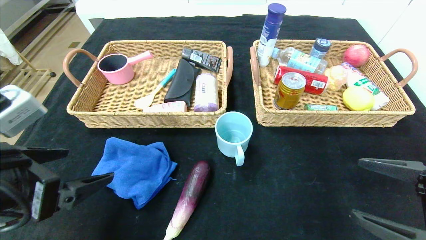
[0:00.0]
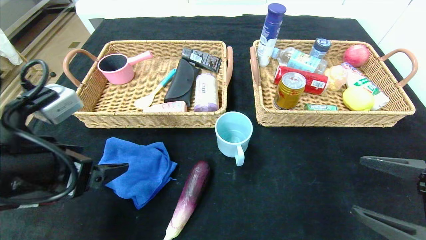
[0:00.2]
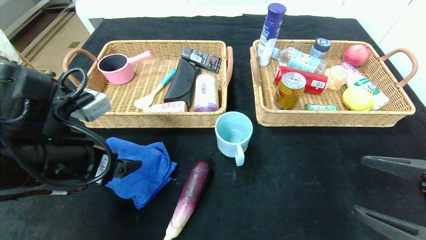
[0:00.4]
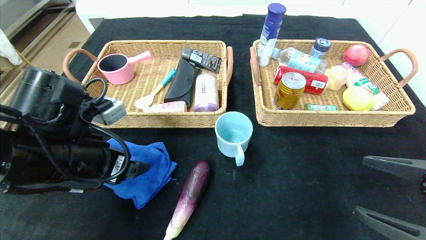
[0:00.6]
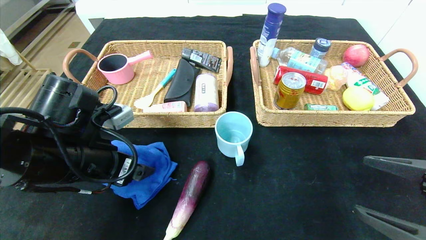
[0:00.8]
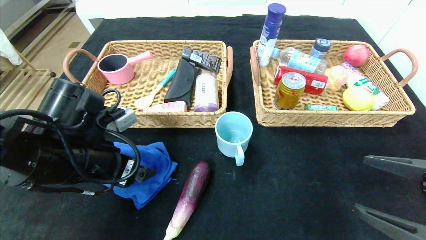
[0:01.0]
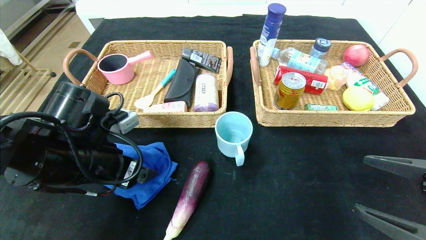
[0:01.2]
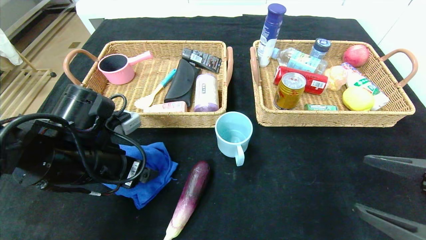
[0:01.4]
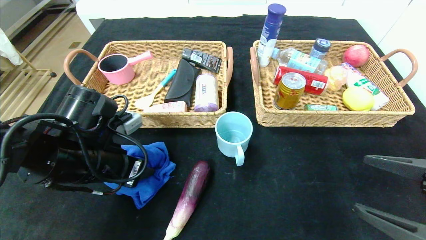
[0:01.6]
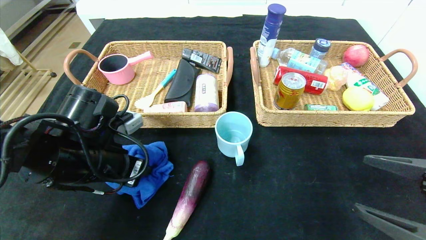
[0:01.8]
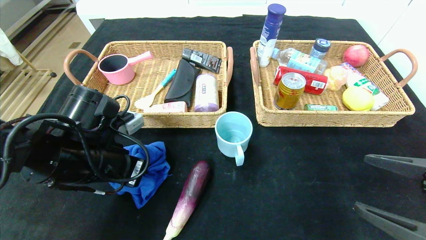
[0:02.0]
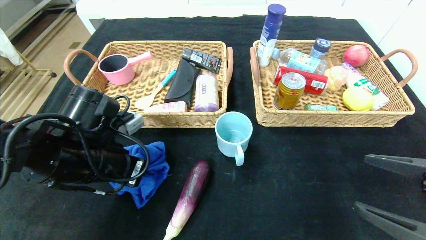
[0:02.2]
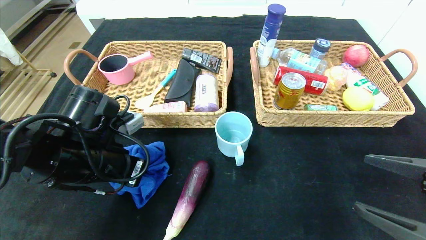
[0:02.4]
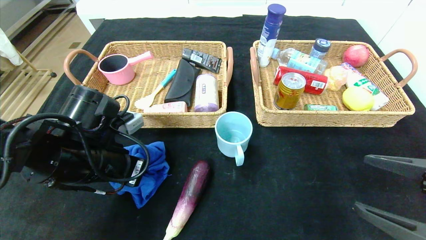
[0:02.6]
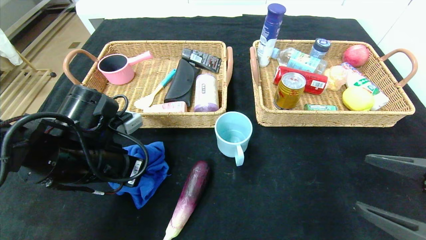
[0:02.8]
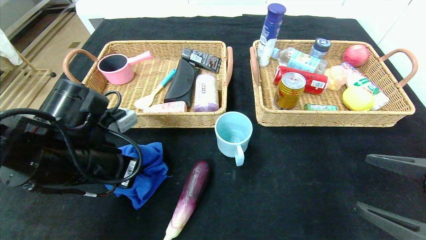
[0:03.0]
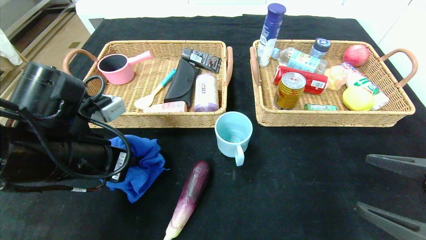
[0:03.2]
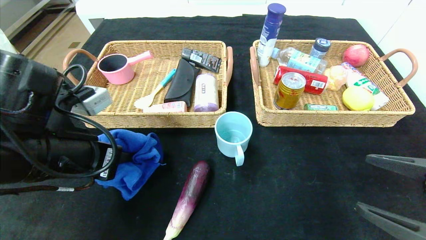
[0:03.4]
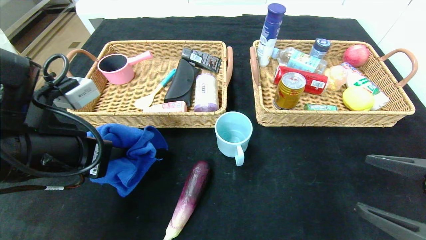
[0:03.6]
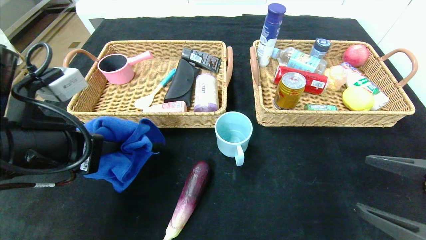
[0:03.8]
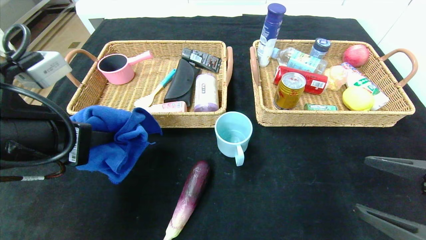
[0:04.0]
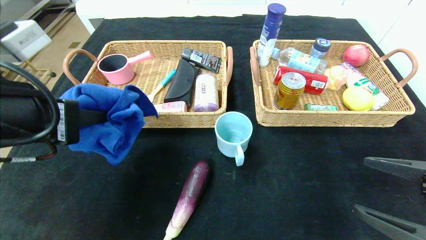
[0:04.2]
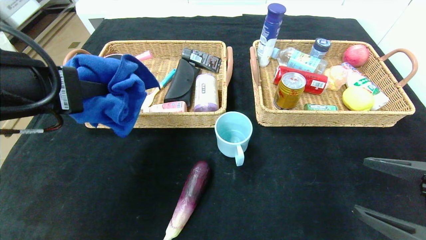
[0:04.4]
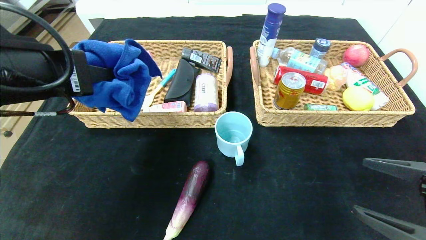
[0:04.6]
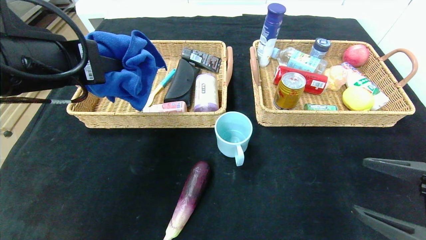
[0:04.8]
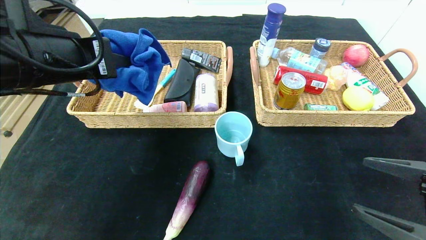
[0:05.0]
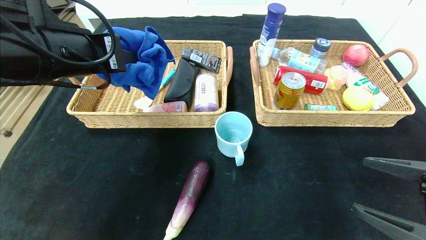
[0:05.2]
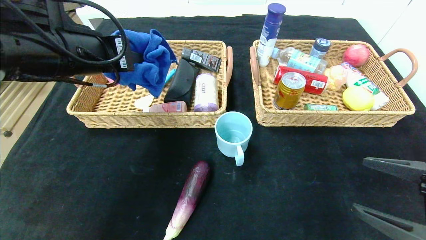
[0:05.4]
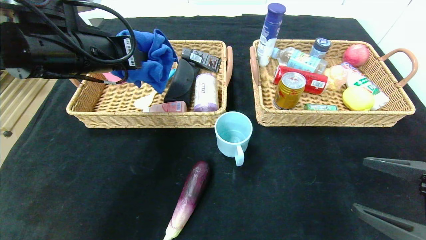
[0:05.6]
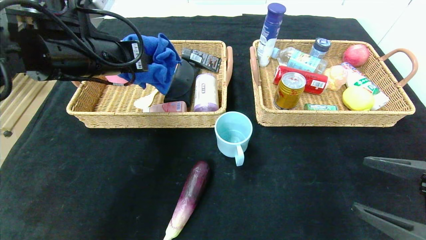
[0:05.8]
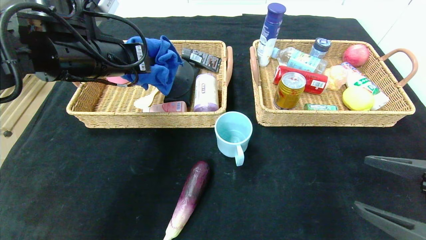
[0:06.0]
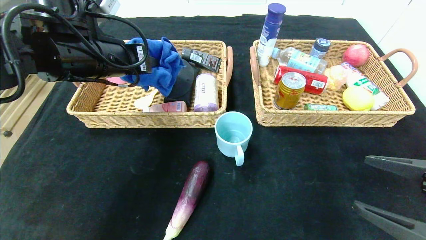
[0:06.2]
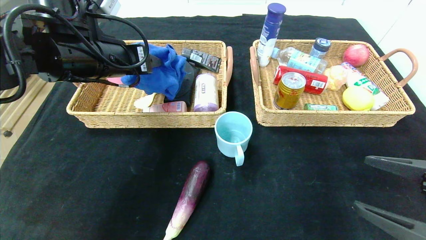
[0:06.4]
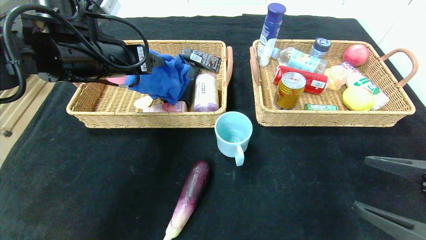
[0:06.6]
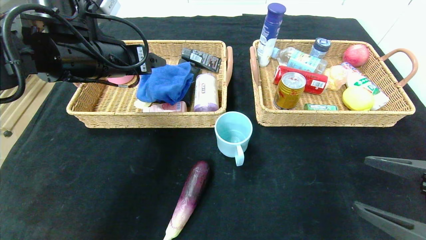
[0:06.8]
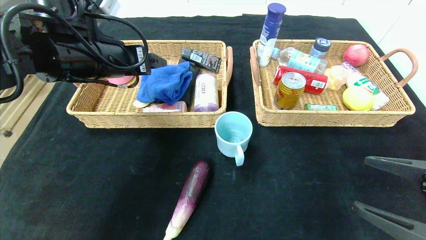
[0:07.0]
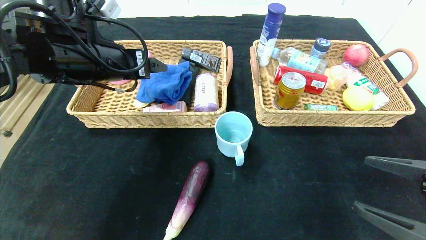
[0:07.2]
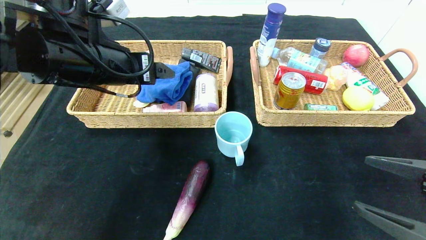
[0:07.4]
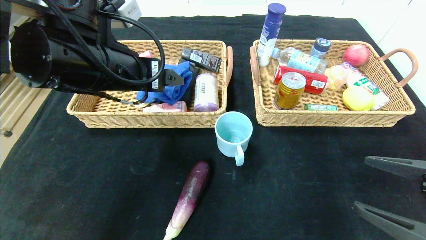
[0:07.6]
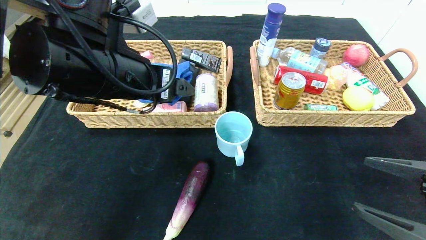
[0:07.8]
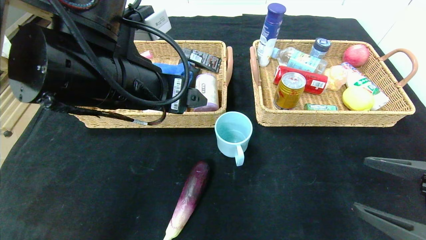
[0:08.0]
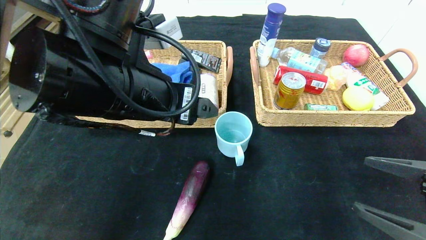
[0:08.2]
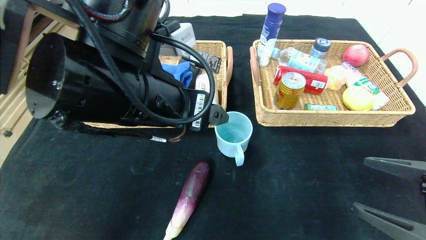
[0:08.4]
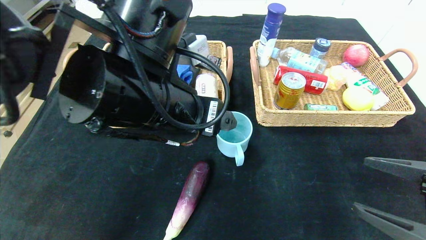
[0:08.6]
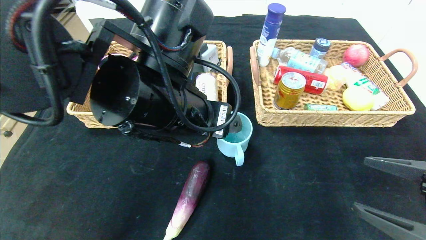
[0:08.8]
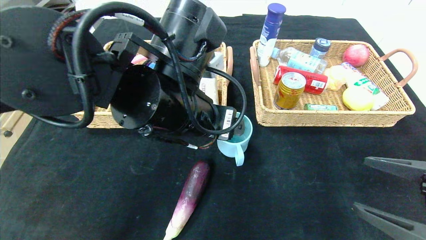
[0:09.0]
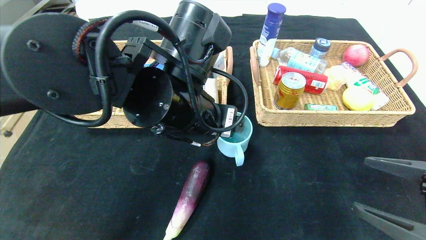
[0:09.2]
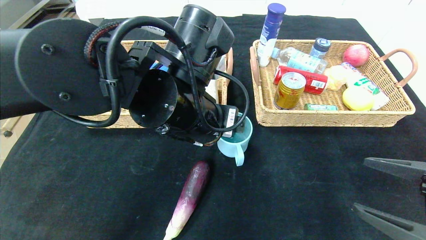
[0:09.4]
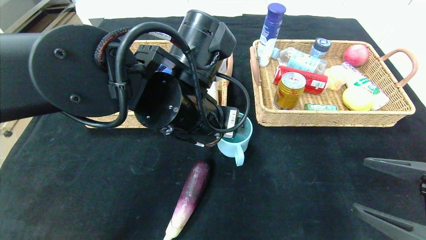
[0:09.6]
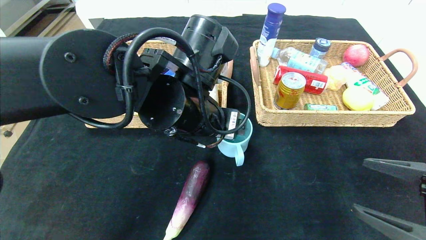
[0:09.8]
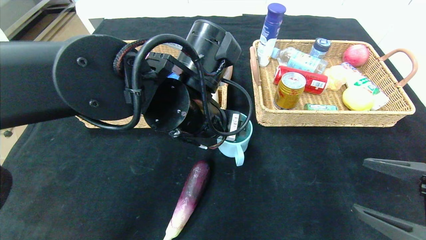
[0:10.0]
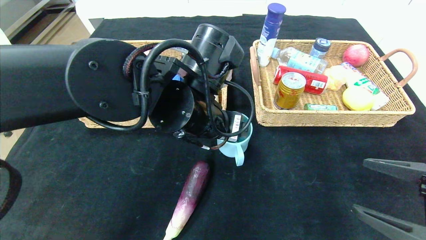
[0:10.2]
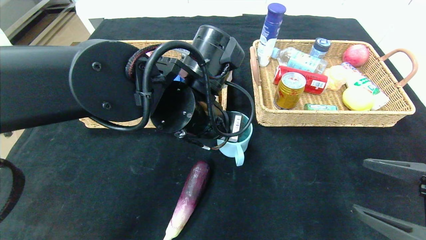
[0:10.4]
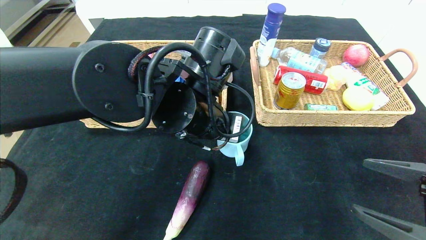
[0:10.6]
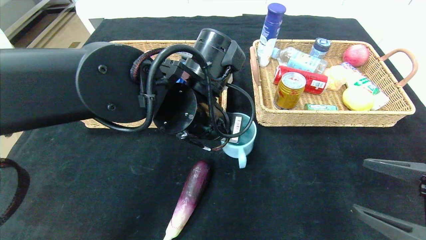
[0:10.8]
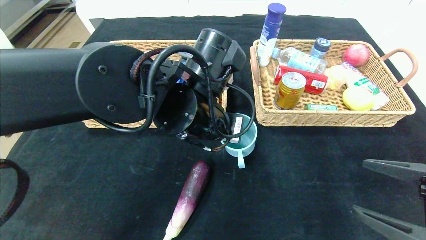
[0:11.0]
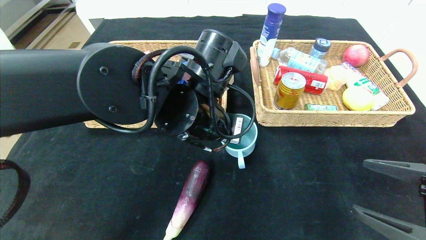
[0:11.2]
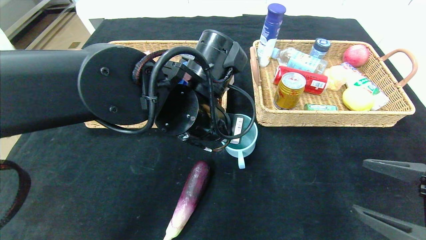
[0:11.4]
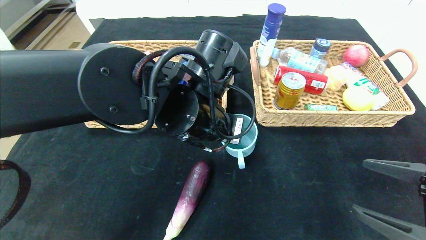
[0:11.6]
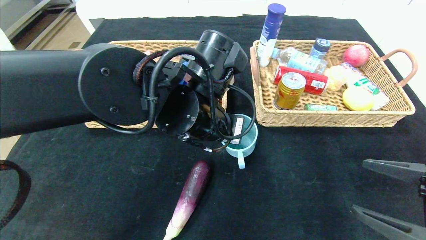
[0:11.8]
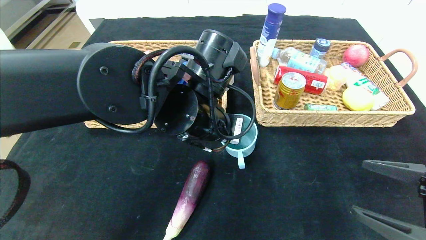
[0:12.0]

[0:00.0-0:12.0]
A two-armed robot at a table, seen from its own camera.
Step, 0:00.0 to 0:08.2: Pick up the blue towel and put it in the left basket.
0:00.0 to 0:01.6: The left gripper is displaced forward and downward by about 10 cm, and closes.
0:01.6 to 0:03.0: The left gripper closes.
0:03.0 to 0:04.4: The left gripper travels upward by approximately 10 cm.
0:04.4 to 0:06.0: The left gripper heads forward, covering roughly 15 cm.
0:06.0 to 0:07.6: The left gripper moves backward, about 5 cm, and opens up.
0:07.6 to 0:09.0: The left gripper travels to the right by about 10 cm.
0:09.0 to 0:10.4: The grippers make only small movements.
0:10.4 to 0:12.0: The left gripper closes.

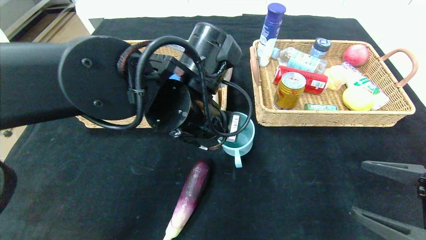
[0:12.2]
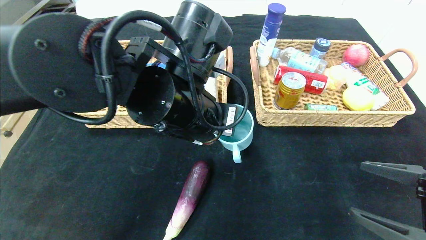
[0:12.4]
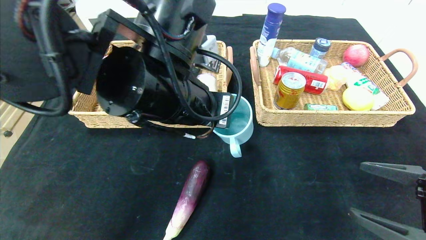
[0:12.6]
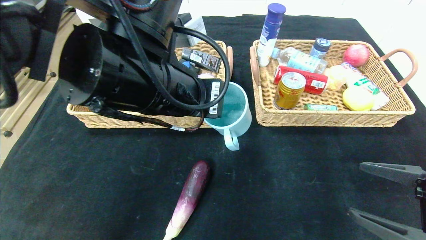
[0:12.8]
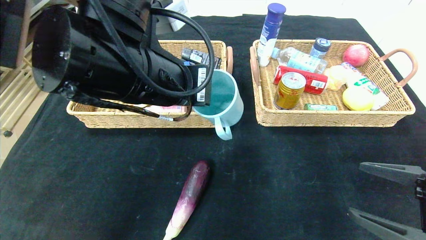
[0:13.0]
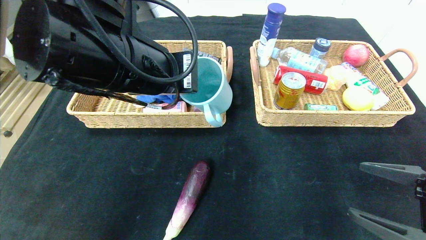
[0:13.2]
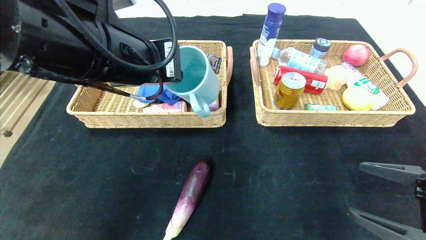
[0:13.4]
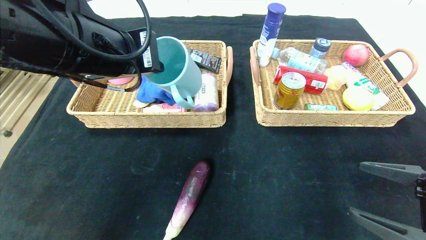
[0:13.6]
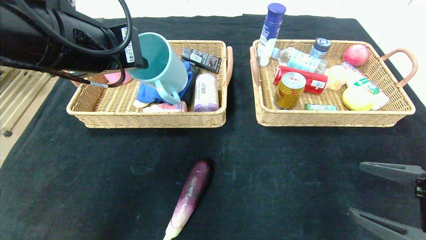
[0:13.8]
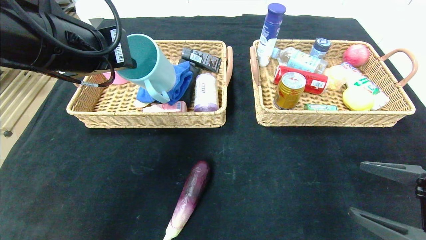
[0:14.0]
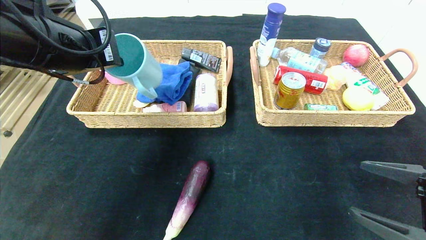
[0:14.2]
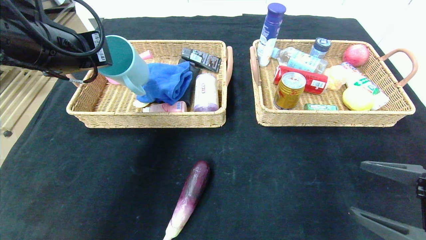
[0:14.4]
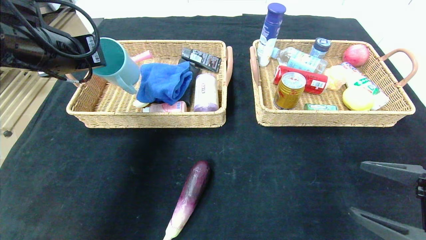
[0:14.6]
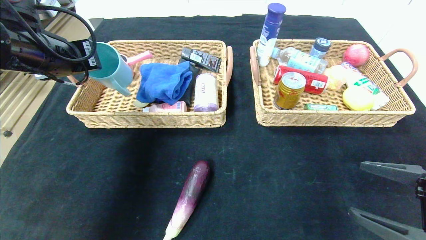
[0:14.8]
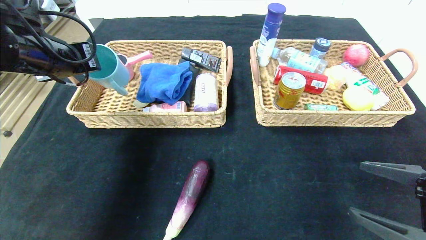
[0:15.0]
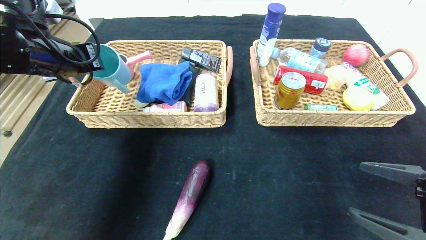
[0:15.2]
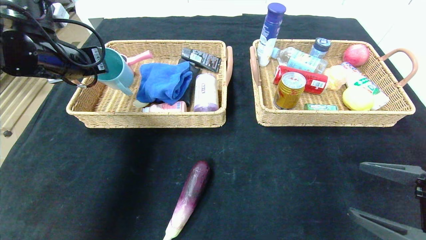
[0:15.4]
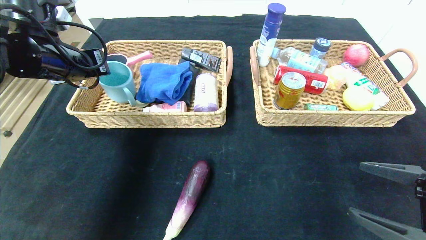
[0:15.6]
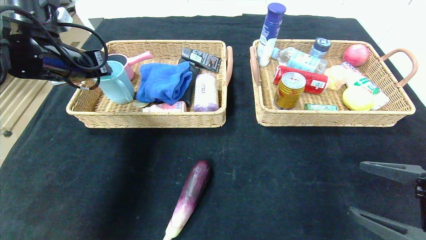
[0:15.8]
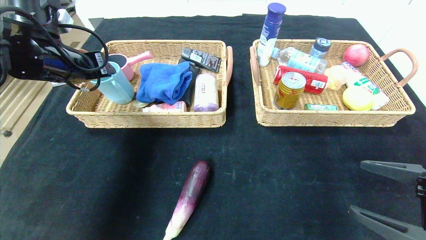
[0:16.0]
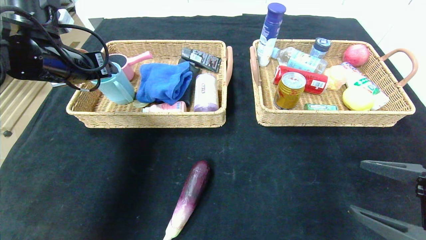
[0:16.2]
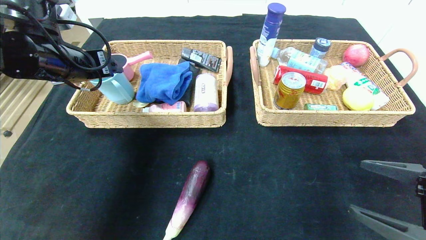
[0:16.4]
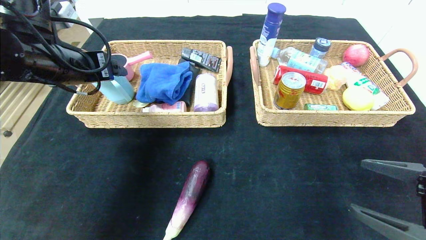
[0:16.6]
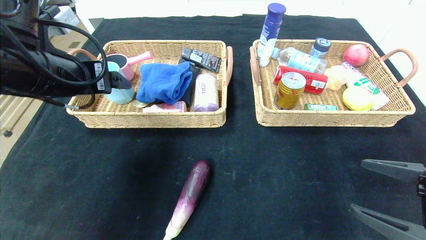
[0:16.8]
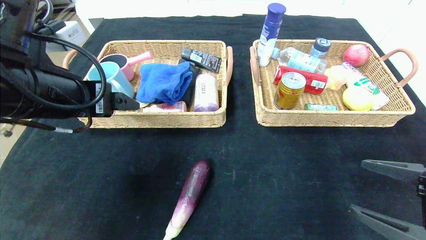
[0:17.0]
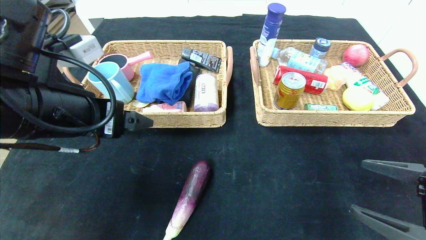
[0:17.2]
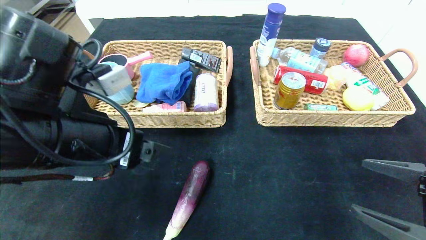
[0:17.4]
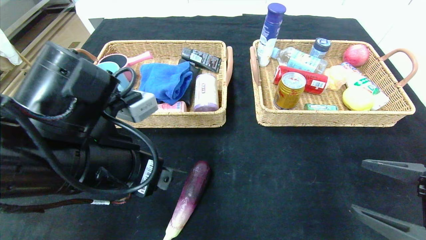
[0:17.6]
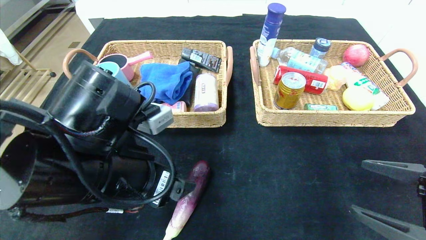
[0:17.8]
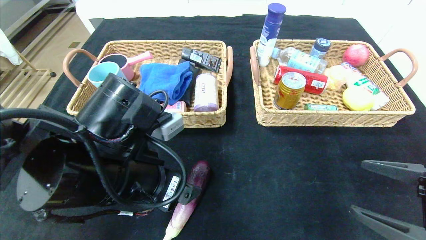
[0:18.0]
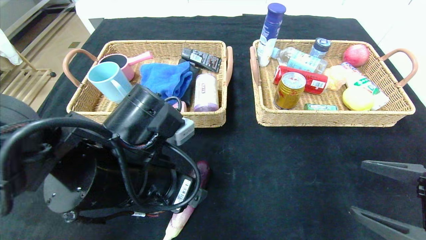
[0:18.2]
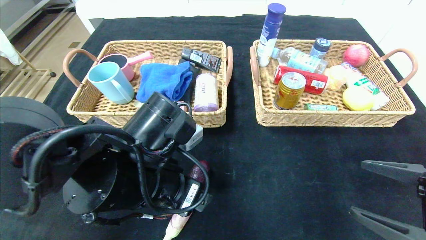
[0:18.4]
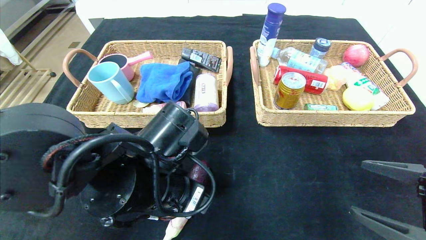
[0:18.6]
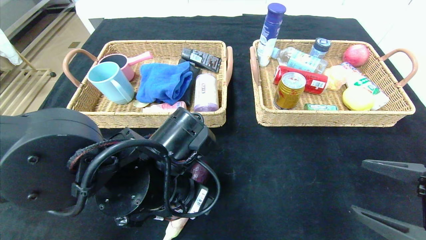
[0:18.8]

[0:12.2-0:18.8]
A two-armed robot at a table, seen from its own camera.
Step, 0:12.2 to 0:17.4: Pick up the blue cup and put it in the left basket.
0:12.2 to 0:13.8: The left gripper moves to the left and upward, approximately 15 cm.
0:13.8 to 0:15.4: The left gripper goes about 15 cm to the left and forward.
0:15.4 to 0:17.2: The left gripper is displaced backward and to the right by roughly 15 cm, and opens.
0:17.2 to 0:18.8: The left gripper heads to the right and downward, covering roughly 15 cm.
